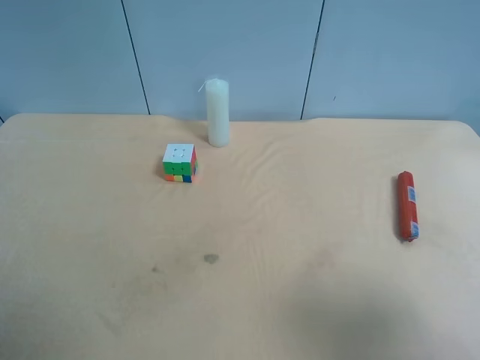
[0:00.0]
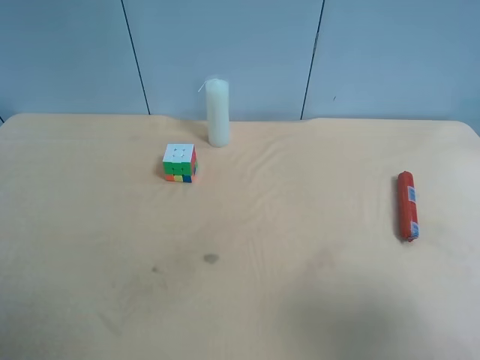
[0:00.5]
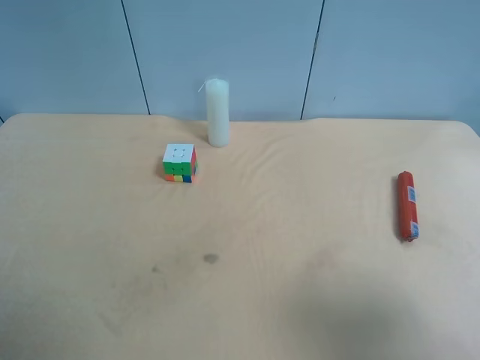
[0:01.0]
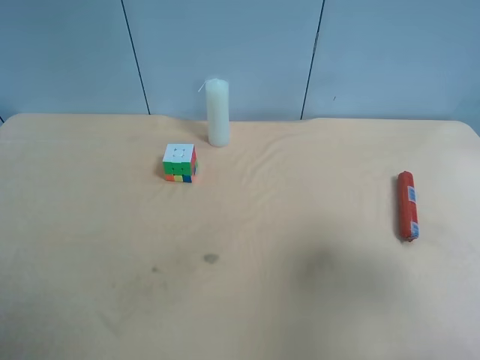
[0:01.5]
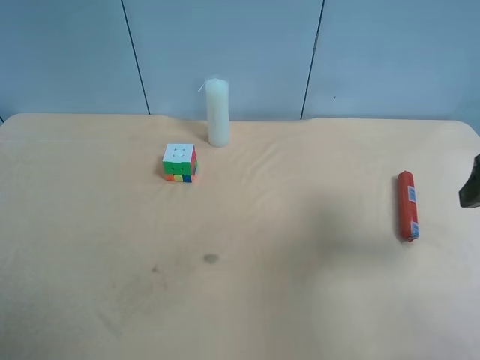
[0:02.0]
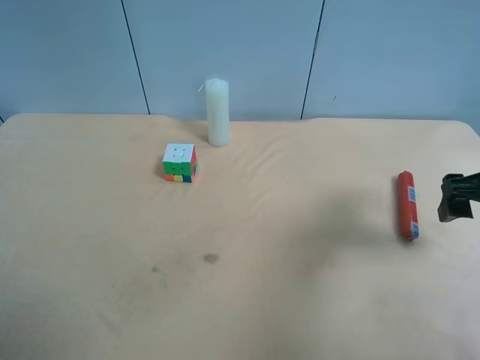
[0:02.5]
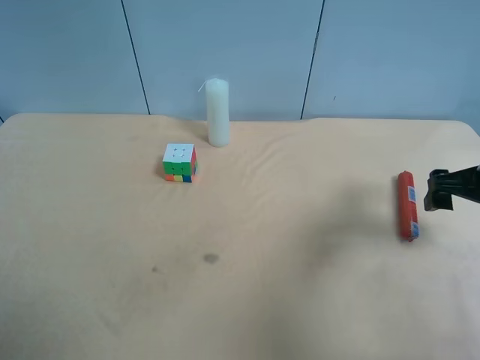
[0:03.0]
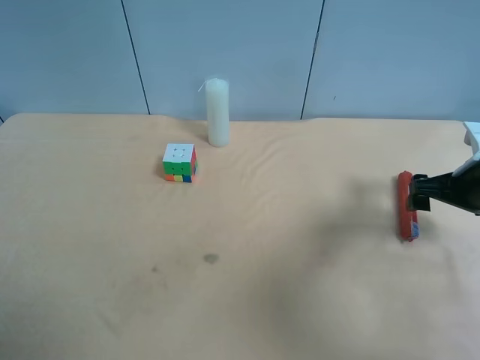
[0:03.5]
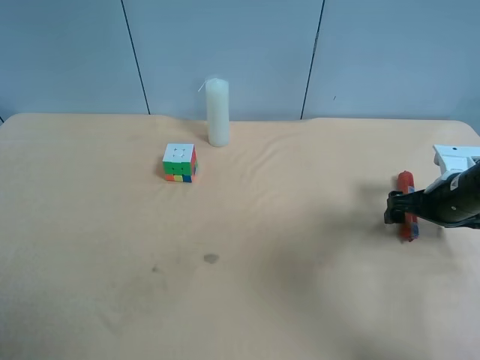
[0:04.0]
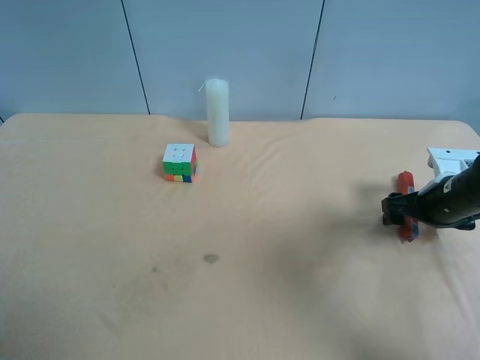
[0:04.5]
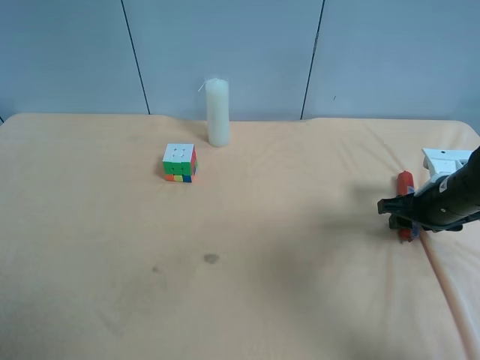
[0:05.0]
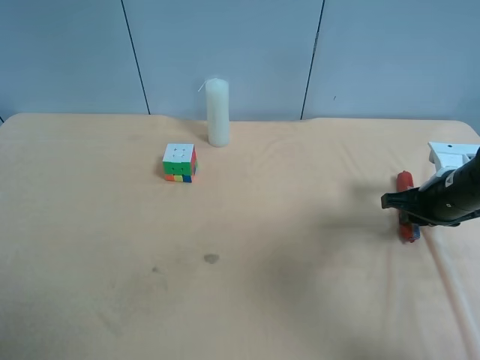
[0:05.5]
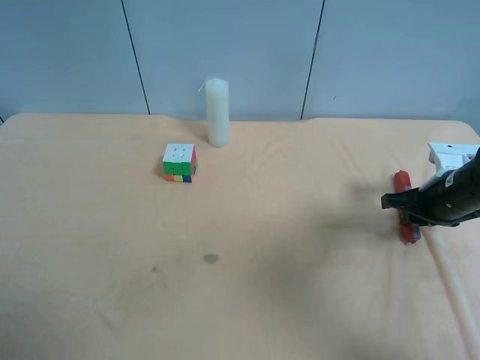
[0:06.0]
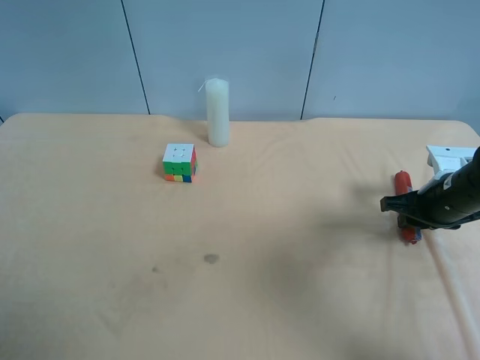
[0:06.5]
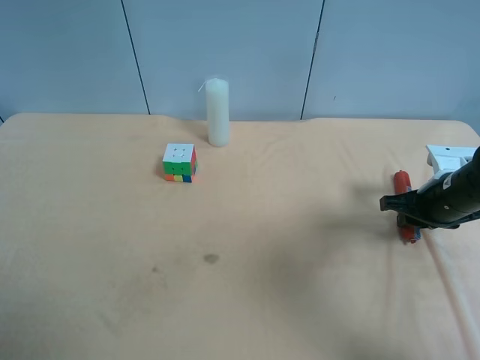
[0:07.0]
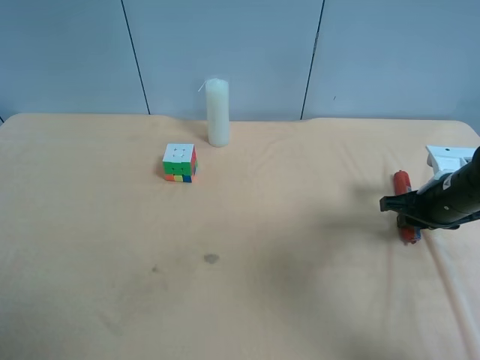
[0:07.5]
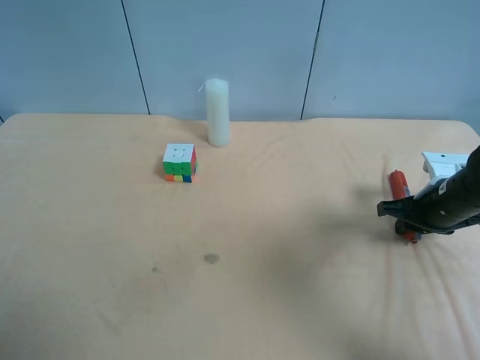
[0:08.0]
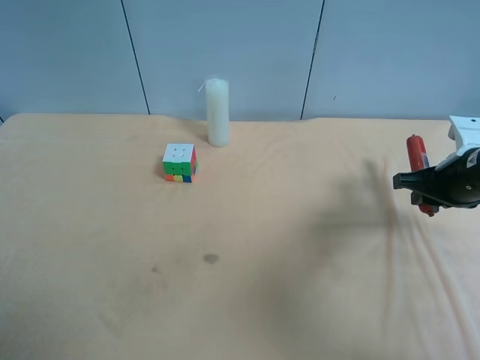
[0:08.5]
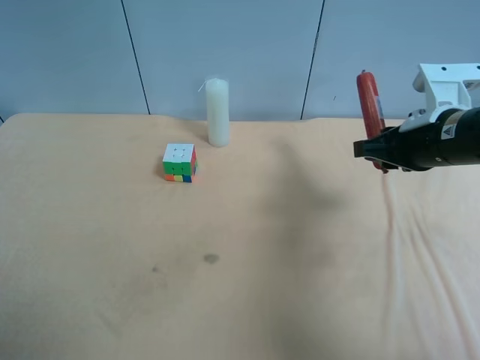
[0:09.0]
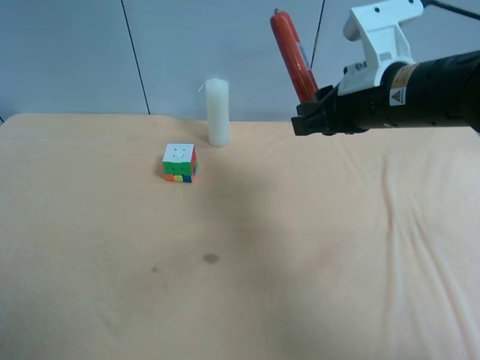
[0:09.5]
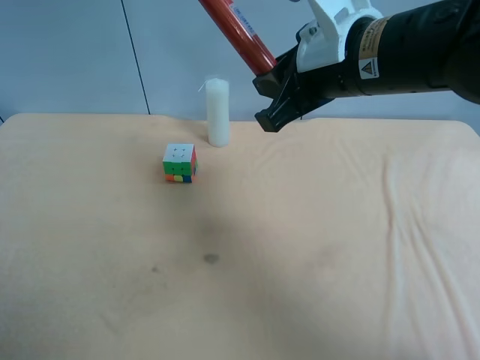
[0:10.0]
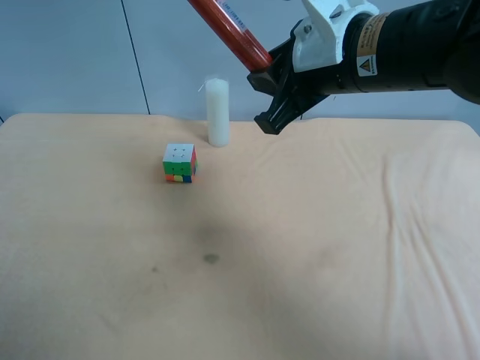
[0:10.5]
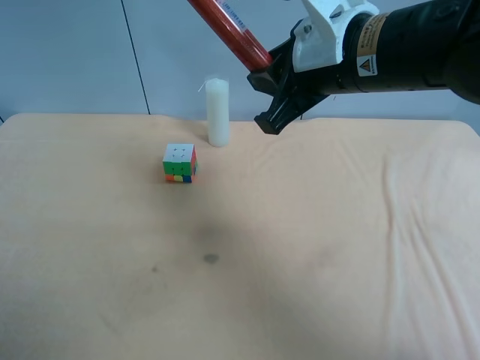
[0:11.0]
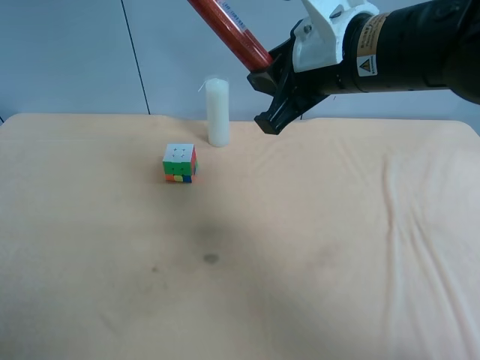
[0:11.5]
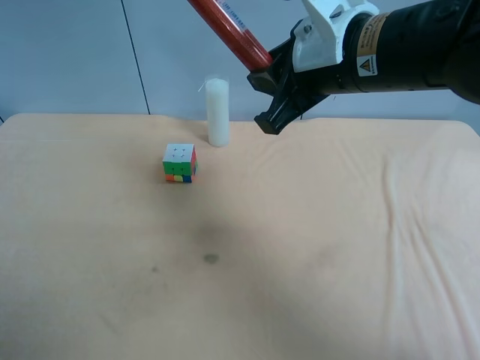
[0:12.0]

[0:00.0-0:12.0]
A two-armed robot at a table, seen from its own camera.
Task of the whole recording: use the right gripper to pick up the item and transfer it from the right gripper to the left gripper.
0.0 to 2.0 s: The right gripper travels forward by some 15 cm.
2.0 to 4.0 s: The right gripper heads downward and forward, covering about 20 cm.
4.0 to 6.0 s: The right gripper closes up.
6.0 to 8.0 s: The grippers make only small movements.
8.0 to 10.0 s: The right gripper heads to the left and upward, covering about 30 cm.
10.0 to 12.0 s: The grippers stay close to where they were, moving slightly.

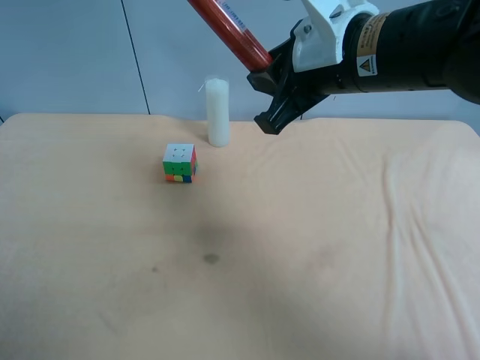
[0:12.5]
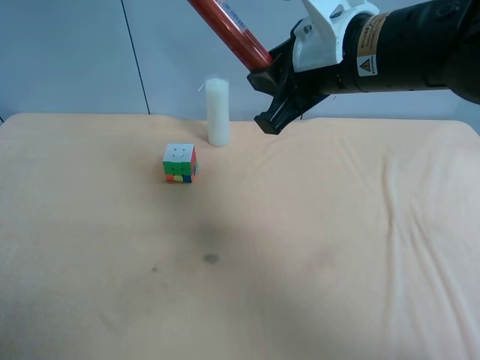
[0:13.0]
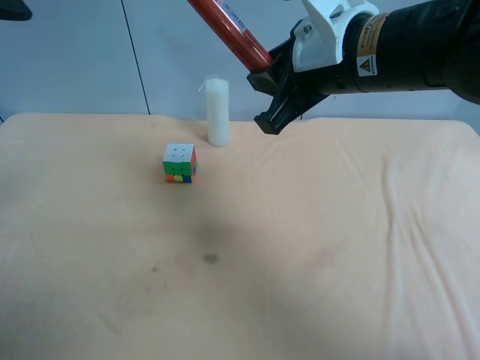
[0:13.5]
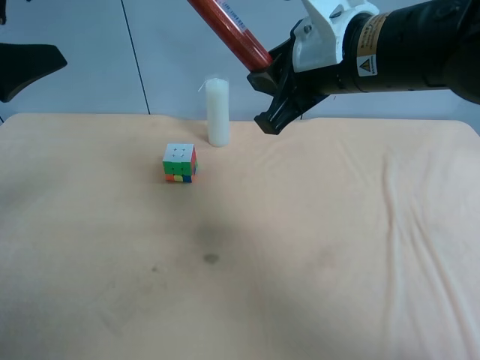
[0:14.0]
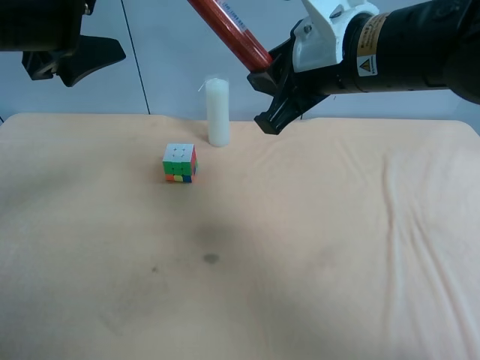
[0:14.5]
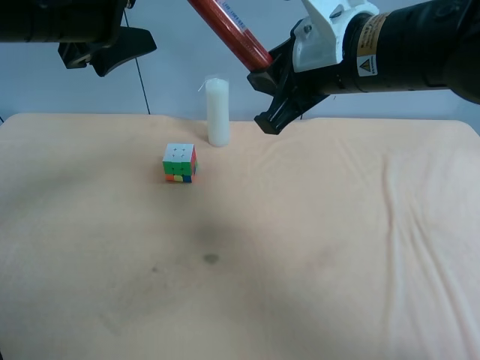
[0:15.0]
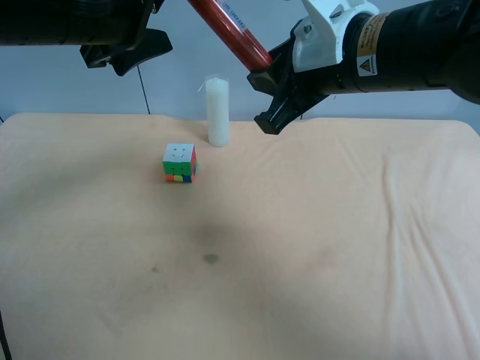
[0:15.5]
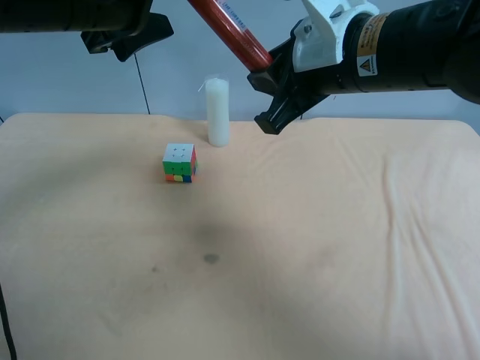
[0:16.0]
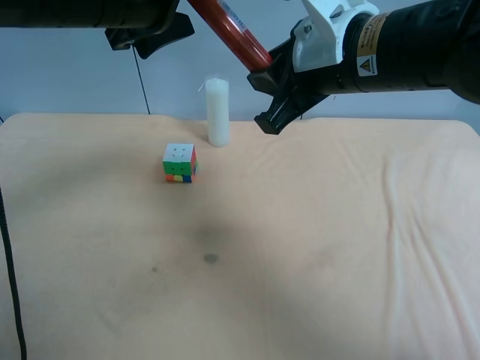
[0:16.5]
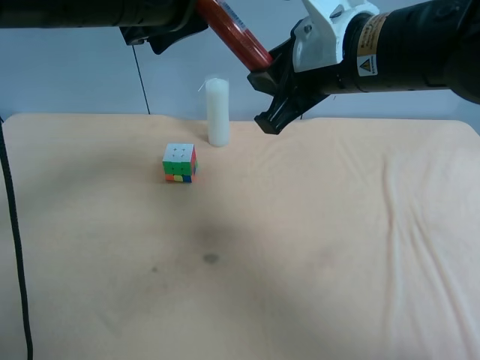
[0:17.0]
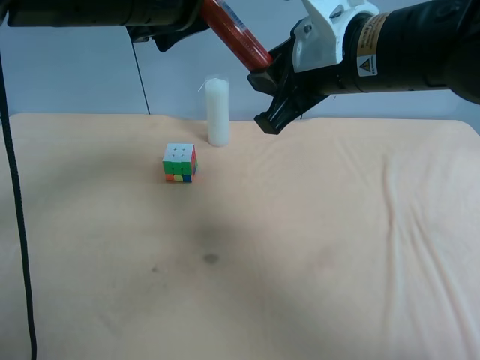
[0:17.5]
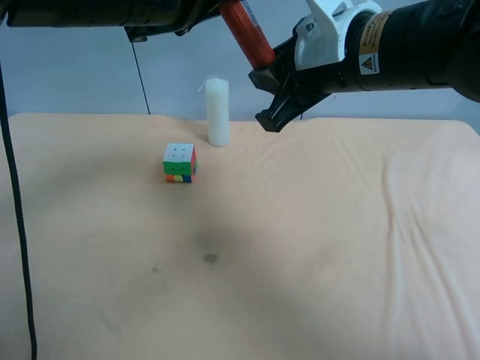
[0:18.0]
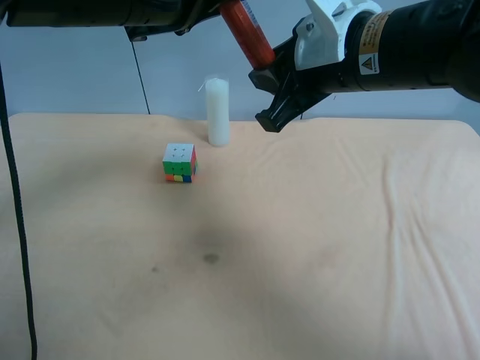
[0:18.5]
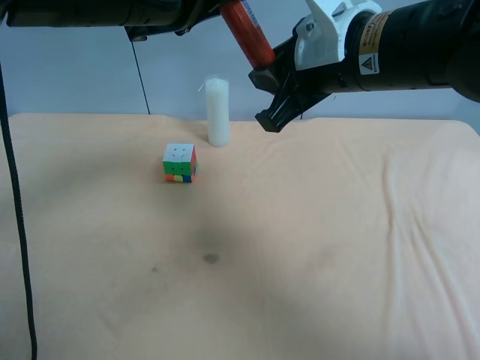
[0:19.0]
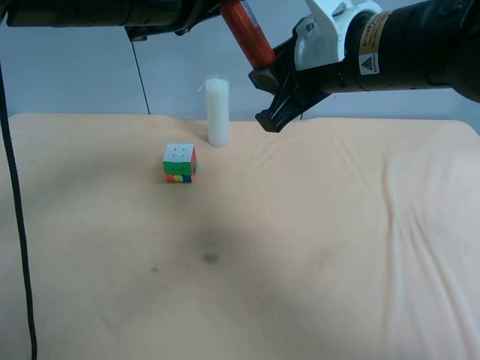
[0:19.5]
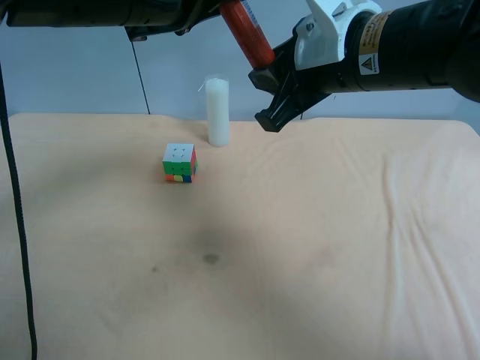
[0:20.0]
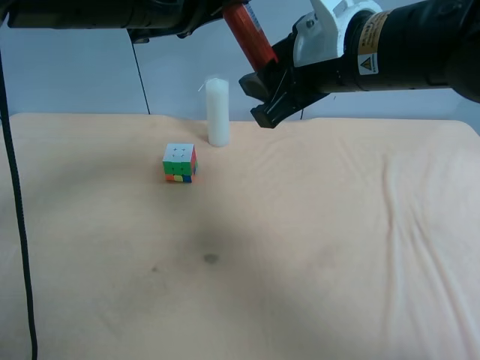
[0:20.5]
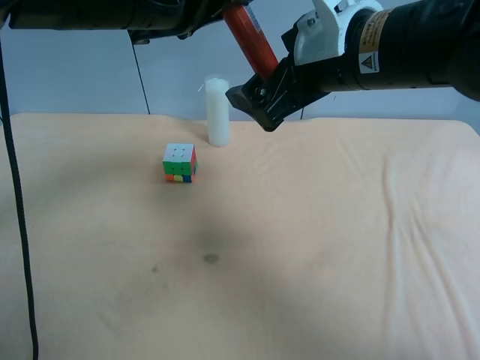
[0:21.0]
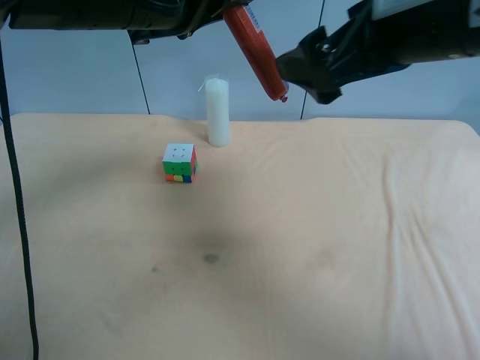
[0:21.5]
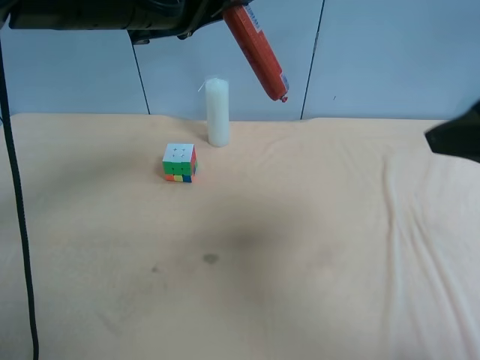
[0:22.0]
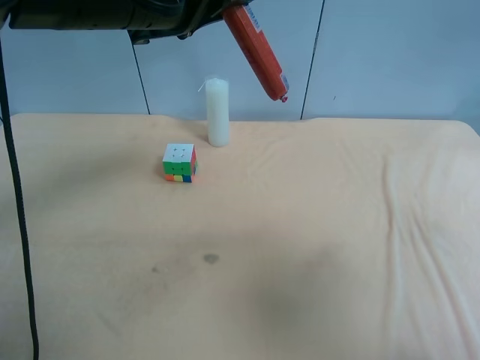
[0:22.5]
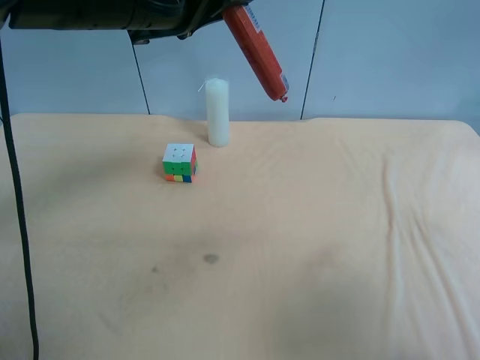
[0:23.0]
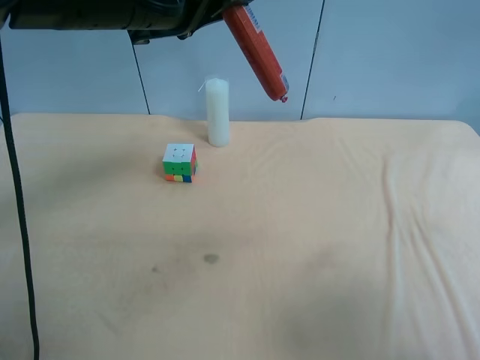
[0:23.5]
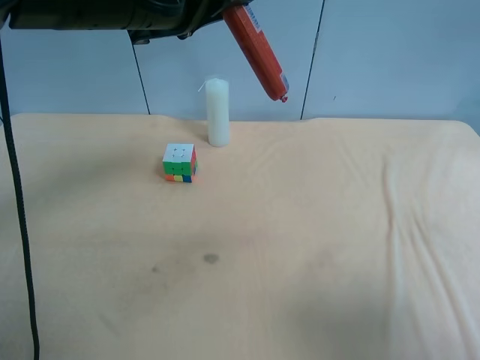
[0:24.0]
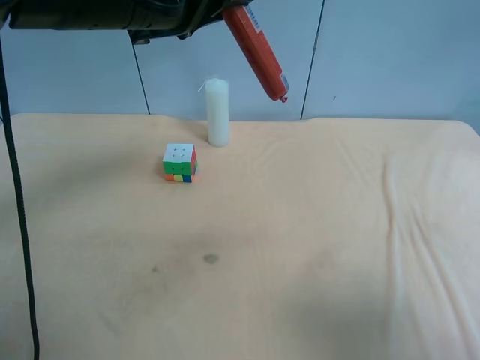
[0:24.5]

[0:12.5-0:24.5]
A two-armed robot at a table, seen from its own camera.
Task of the whole recording: use the right gripper to pick up the item and transfer it from the right gripper to the left gripper.
12.5 to 14.5 s: The left gripper heads forward and to the right, covering approximately 25 cm.
14.5 to 16.5 s: The left gripper shifts some 5 cm to the right.
16.5 to 18.5 s: The left gripper closes its fingers.
18.5 to 20.5 s: The right gripper opens its fingers.
20.5 to 22.5 s: The right gripper moves backward and to the right, roughly 25 cm, and opens up.
22.5 to 24.5 s: The right gripper shifts by roughly 5 cm.

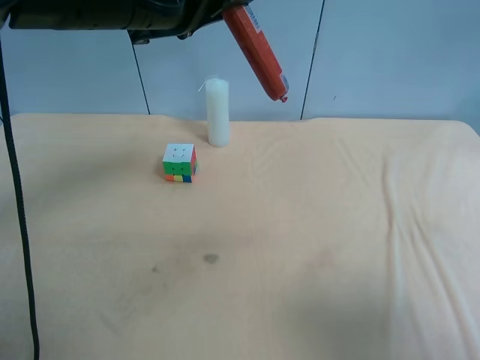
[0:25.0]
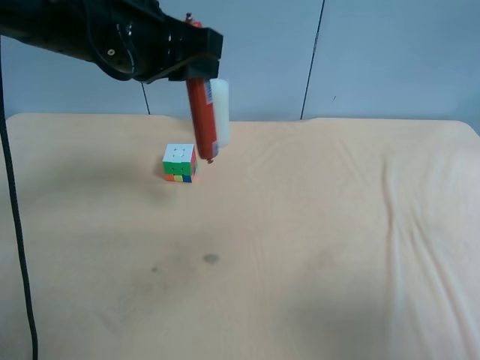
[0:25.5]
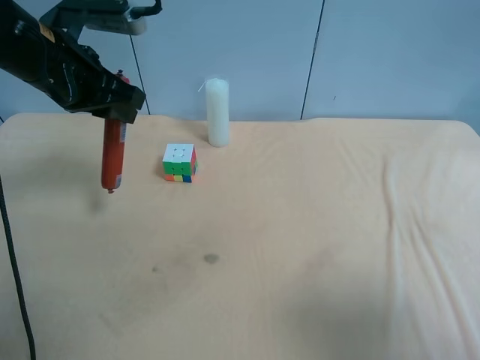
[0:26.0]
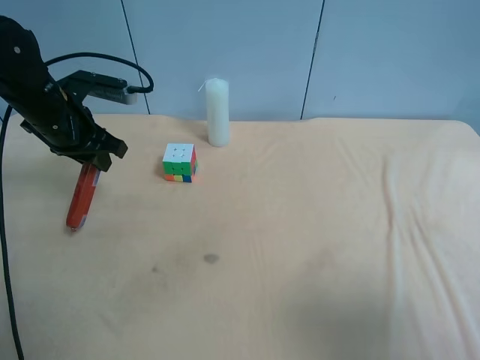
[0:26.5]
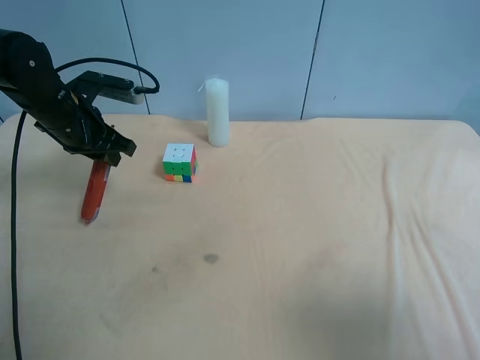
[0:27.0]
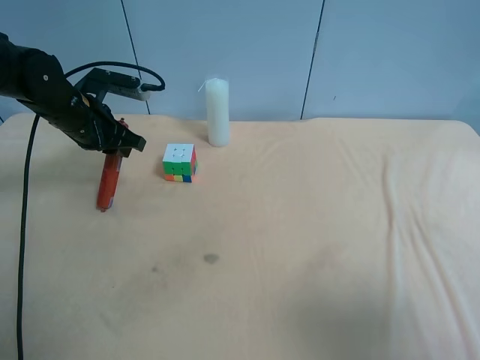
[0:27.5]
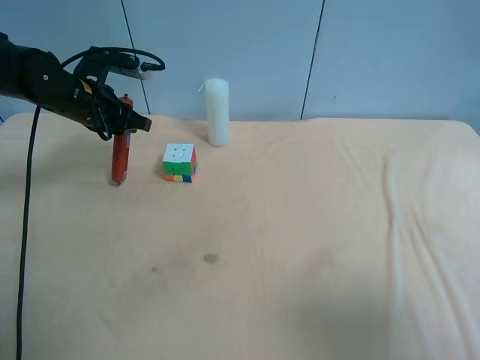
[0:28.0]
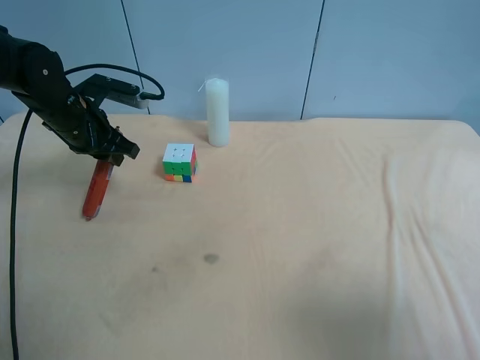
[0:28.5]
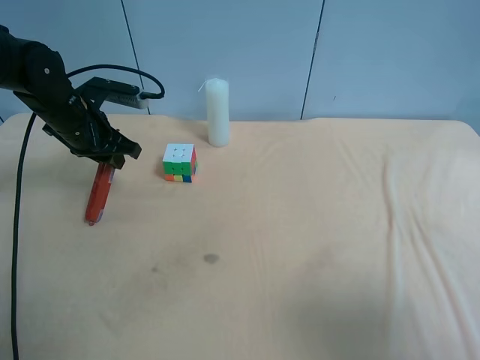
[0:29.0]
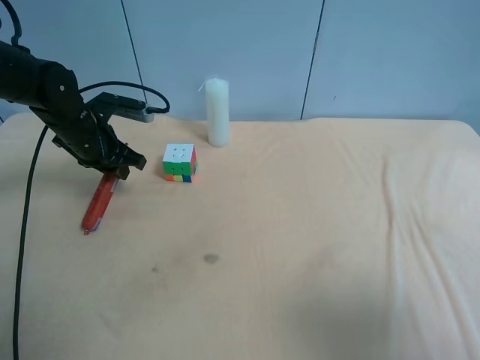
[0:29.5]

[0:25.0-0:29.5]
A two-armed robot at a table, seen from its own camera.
Task of the whole recording: use the right gripper to pick up the item and transfer it from the right gripper to the left gripper.
25.0 to 27.0 s: The left gripper heads downward, to the left and forward, covering some 25 cm.
27.0 to 29.5 s: The grippers move only a little.
